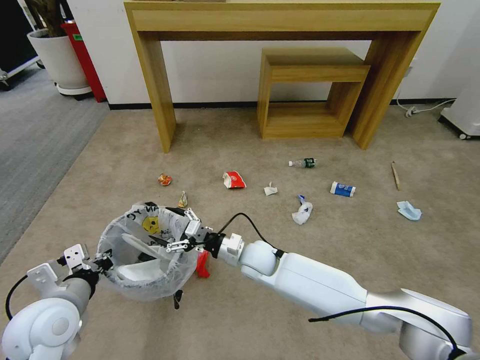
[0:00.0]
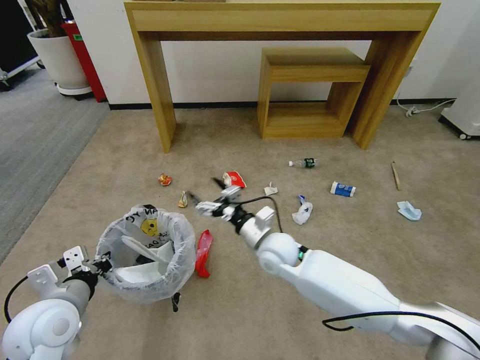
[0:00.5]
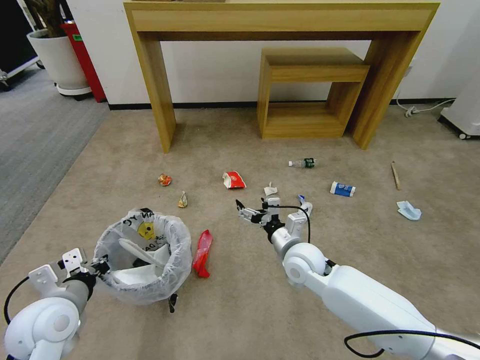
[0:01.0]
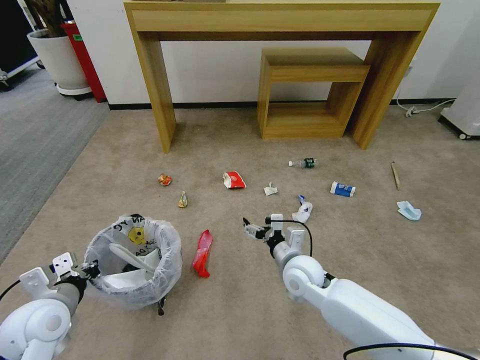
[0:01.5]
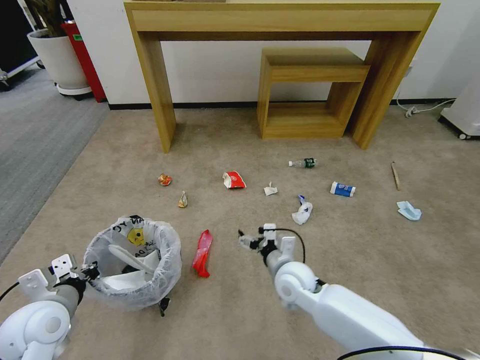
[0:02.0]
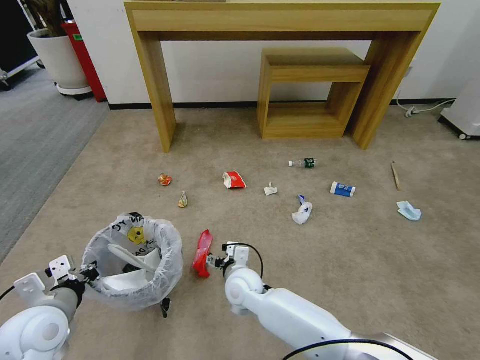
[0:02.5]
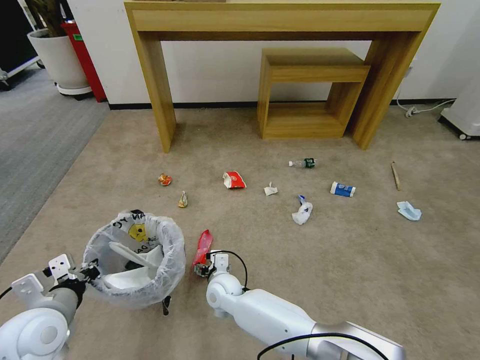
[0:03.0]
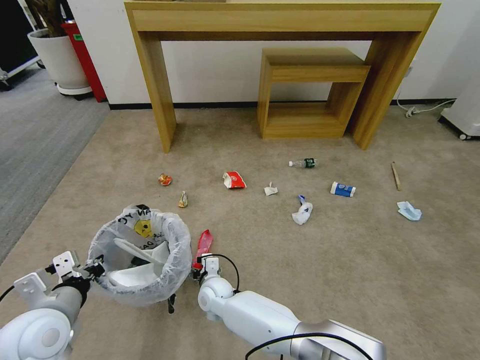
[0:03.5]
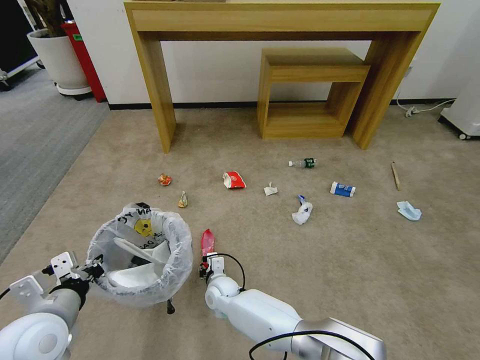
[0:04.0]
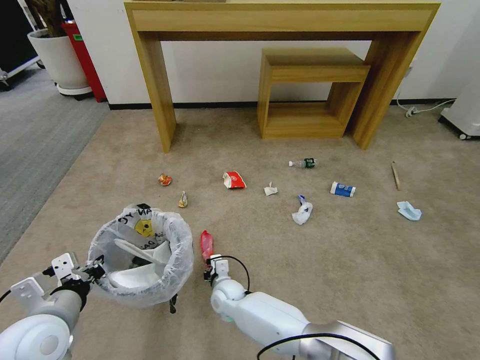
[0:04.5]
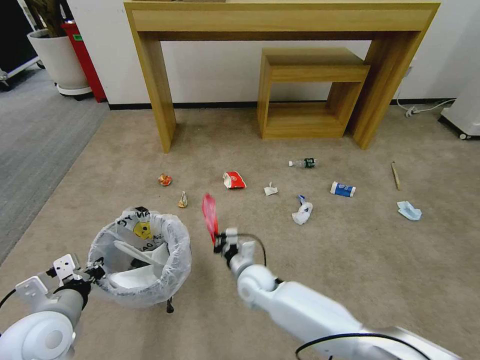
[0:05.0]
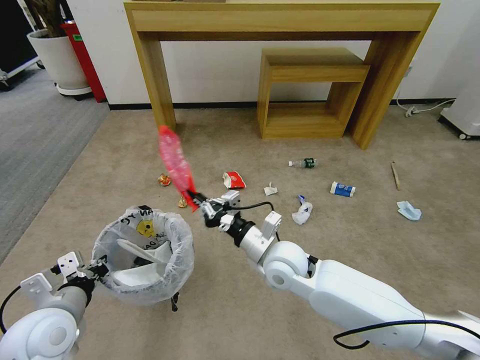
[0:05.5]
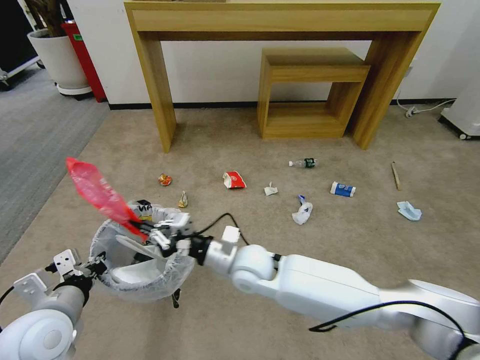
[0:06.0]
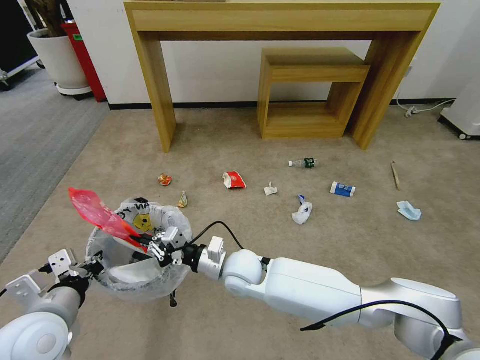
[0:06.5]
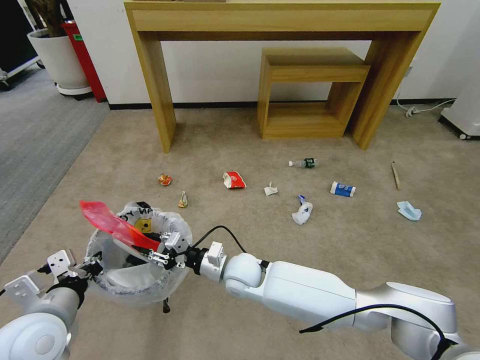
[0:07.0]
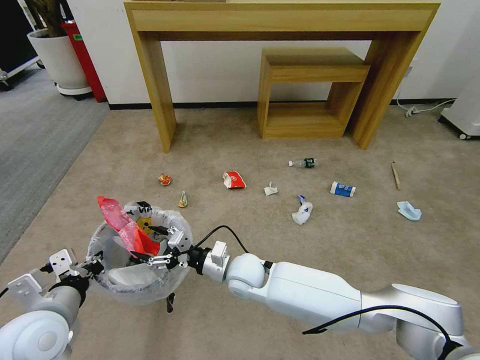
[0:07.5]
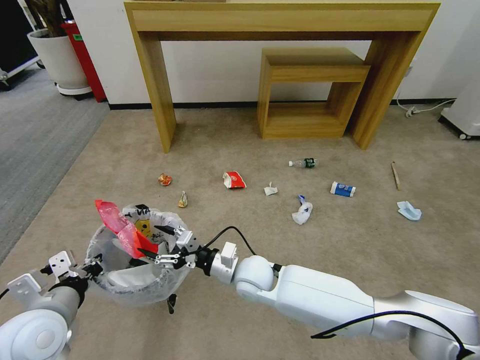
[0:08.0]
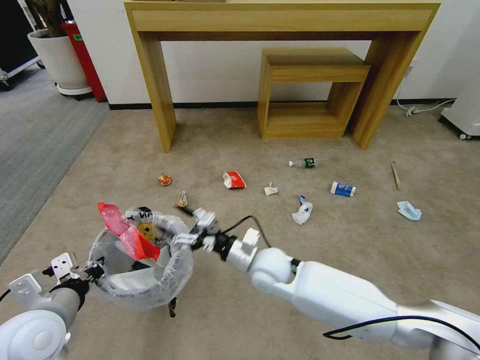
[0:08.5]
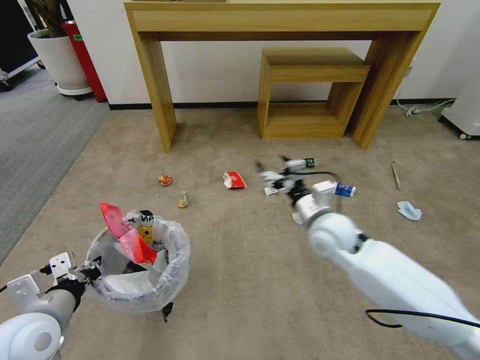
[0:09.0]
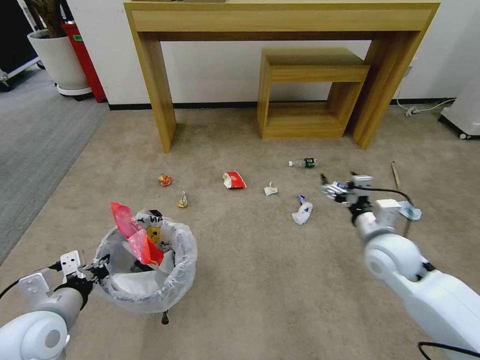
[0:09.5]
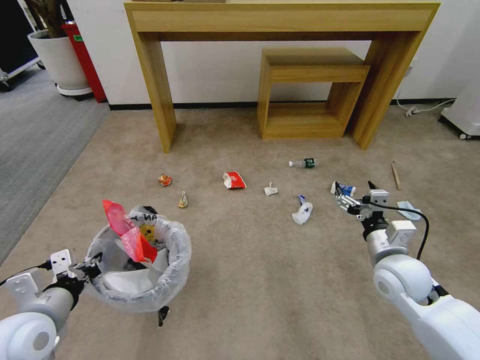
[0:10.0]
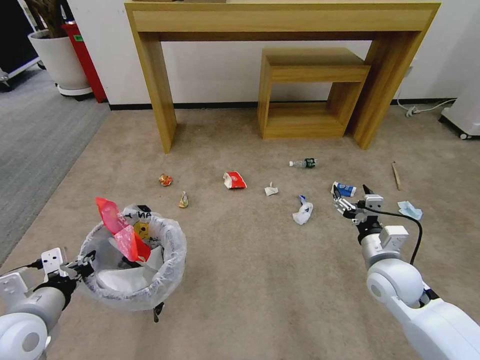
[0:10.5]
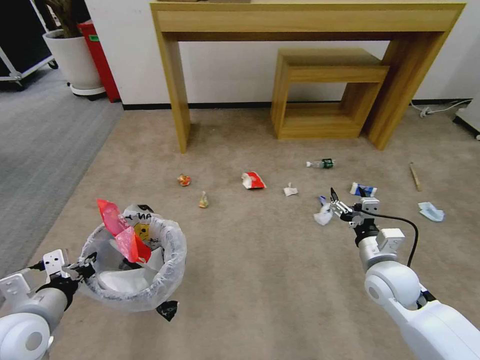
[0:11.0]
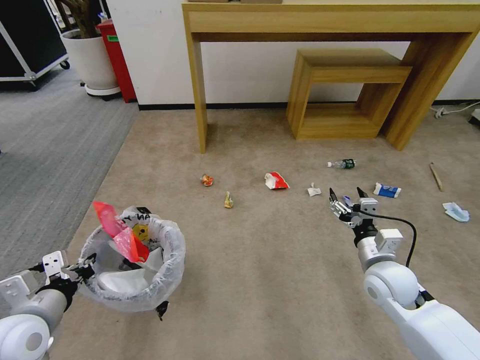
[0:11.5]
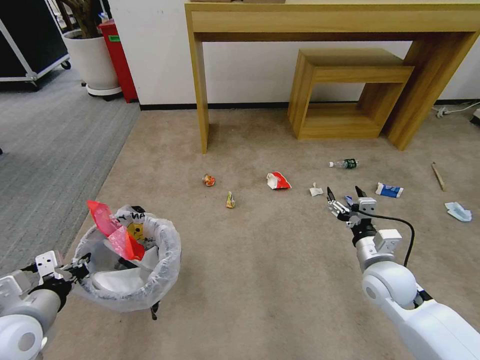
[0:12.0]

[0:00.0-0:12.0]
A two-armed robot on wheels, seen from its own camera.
Task of the whole recording: Pick up the trash bin and place the garbage on the floor into it.
0:00.0 to 0:02.0: The right gripper heads to the right and backward, covering some 10 cm.
0:02.0 to 0:04.0: The right gripper heads to the left and downward, covering approximately 20 cm, and closes. Meanwhile the left gripper shifts by roughly 5 cm.
0:04.0 to 0:06.0: The right gripper shifts roughly 20 cm upward, and closes.
0:06.0 to 0:08.0: The right gripper heads downward, covering approximately 5 cm, and opens its fingers.
0:08.0 to 0:10.0: The right gripper is displaced to the right by roughly 30 cm.

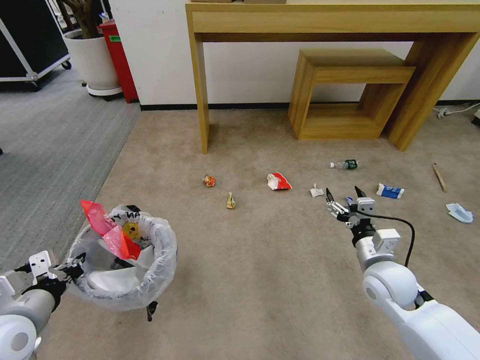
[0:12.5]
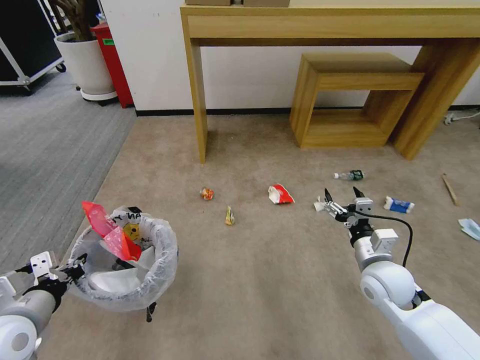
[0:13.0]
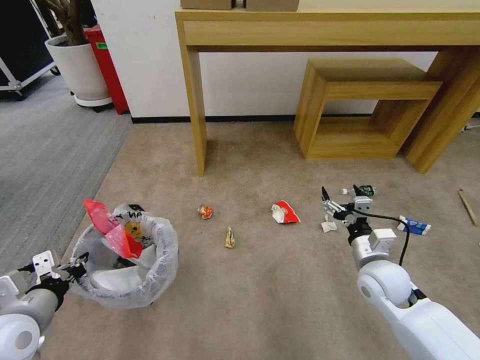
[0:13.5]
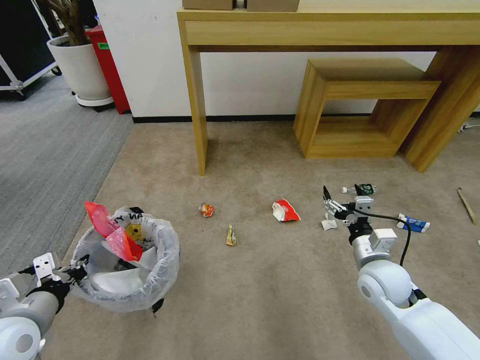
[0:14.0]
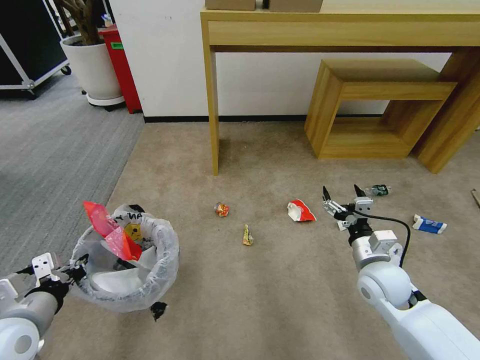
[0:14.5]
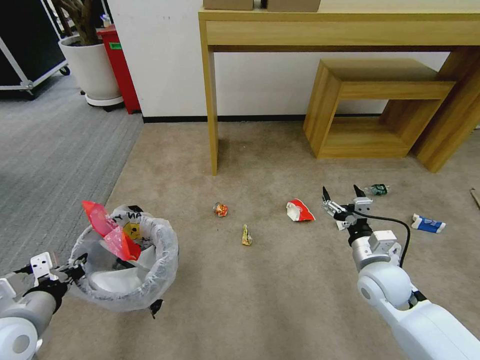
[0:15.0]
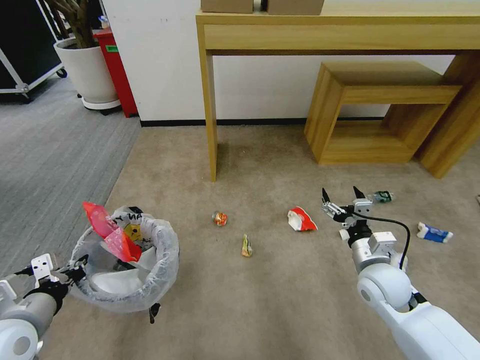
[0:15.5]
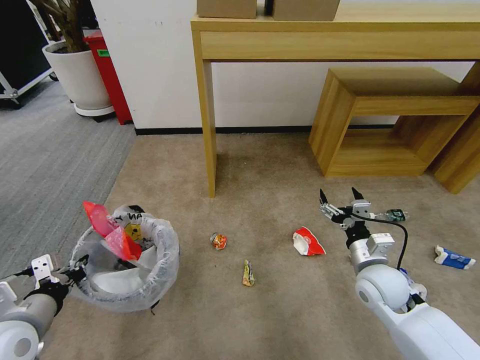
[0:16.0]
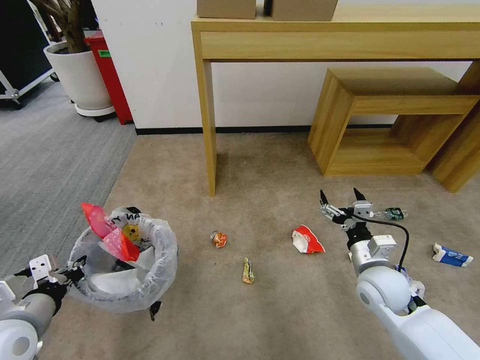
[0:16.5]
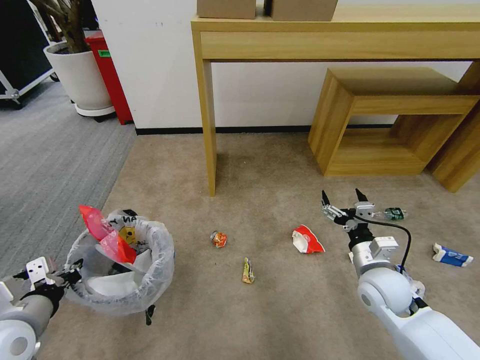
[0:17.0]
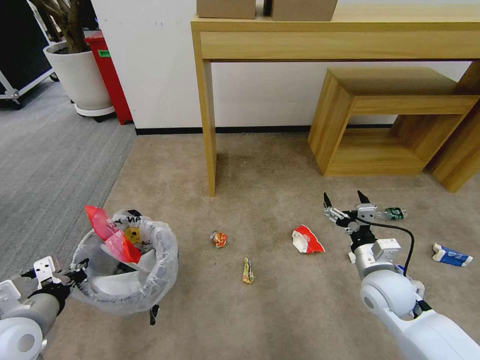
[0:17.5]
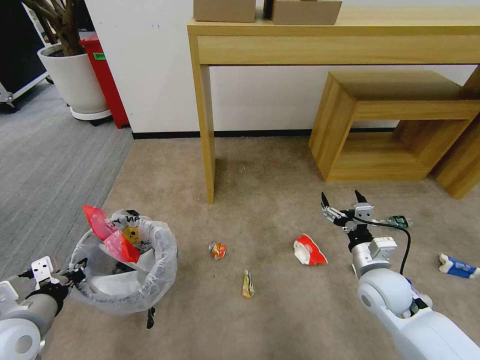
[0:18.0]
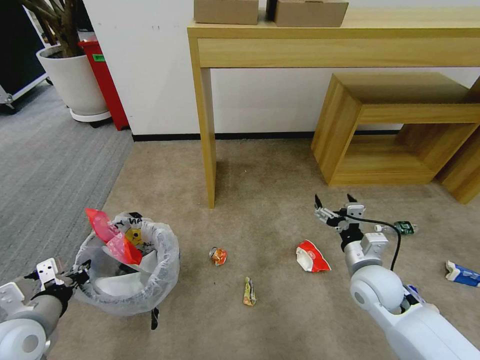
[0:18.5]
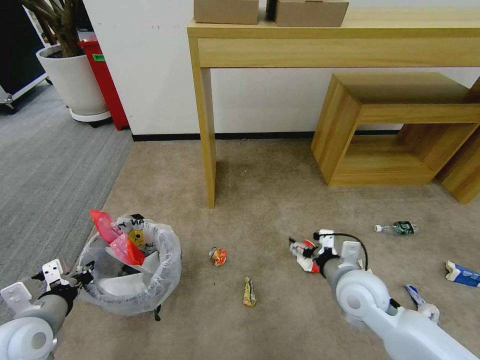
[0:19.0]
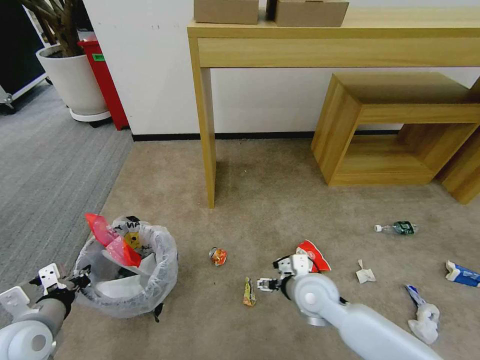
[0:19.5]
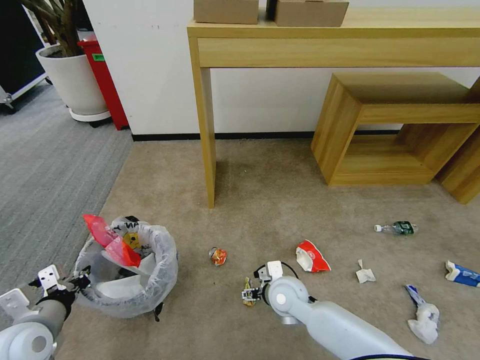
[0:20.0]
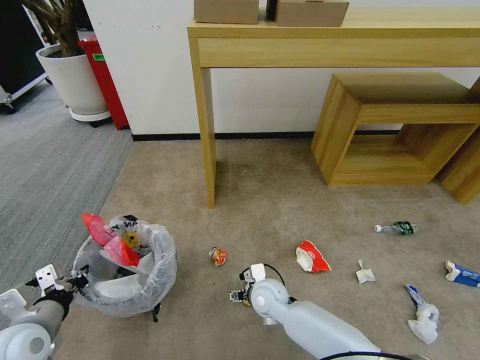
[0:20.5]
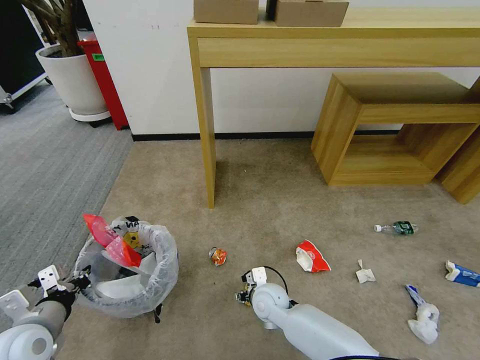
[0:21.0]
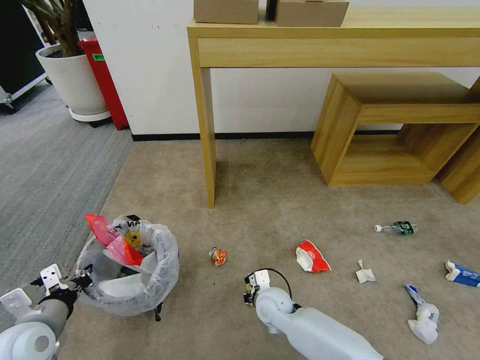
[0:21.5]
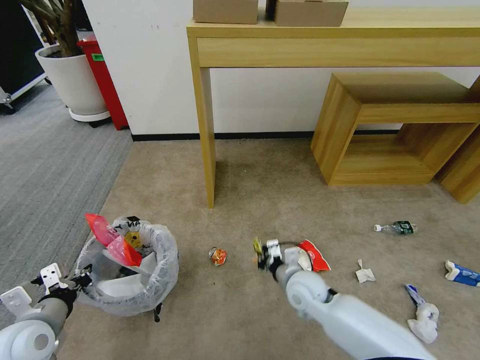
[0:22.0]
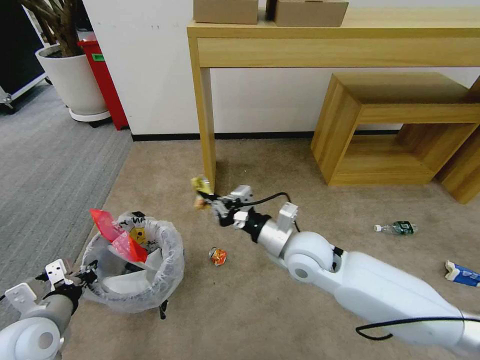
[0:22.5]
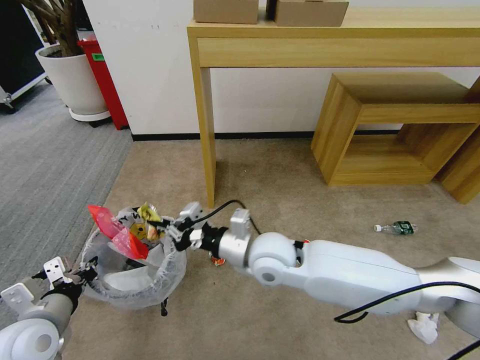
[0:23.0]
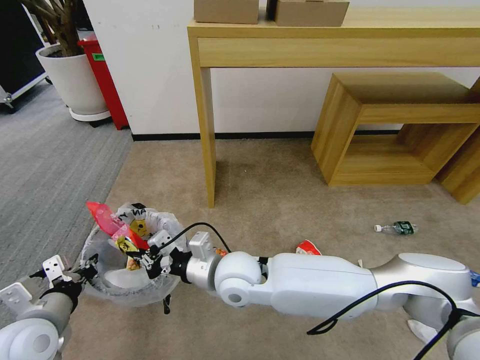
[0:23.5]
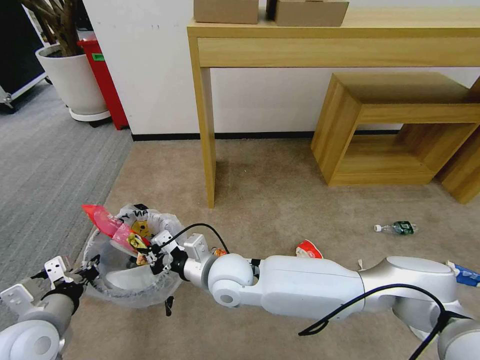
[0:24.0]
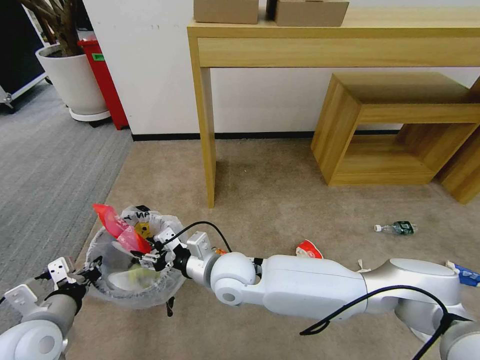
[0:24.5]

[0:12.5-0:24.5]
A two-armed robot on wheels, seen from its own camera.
Task of the whole recording: Pick up the trash bin and place the garbage on the floor into it.
0:18.5 to 0:20.5: The right gripper shifts some 25 cm to the left and downward.
0:20.5 to 0:22.5: The right gripper goes some 20 cm upward, and closes up.
0:22.5 to 0:24.5: The right gripper shifts some 15 cm to the left, and opens its fingers.

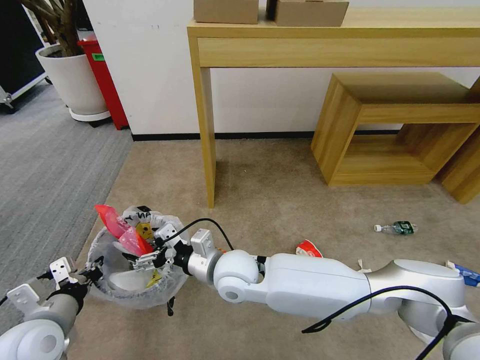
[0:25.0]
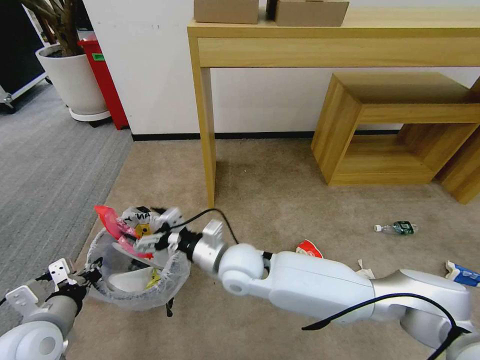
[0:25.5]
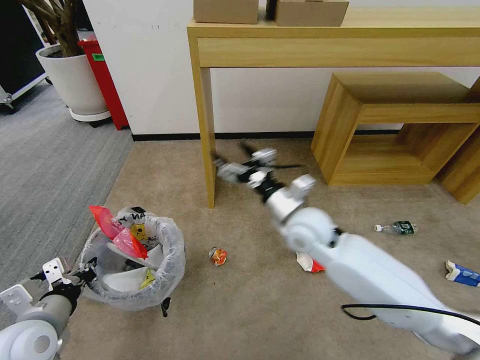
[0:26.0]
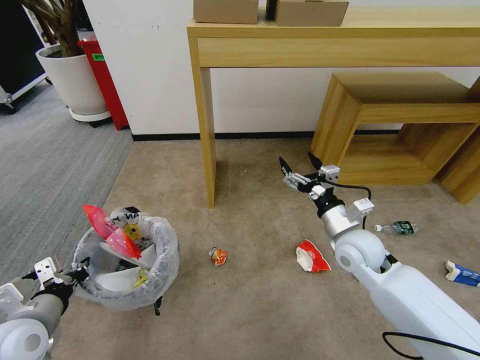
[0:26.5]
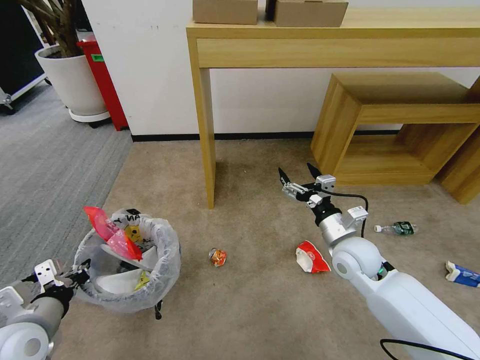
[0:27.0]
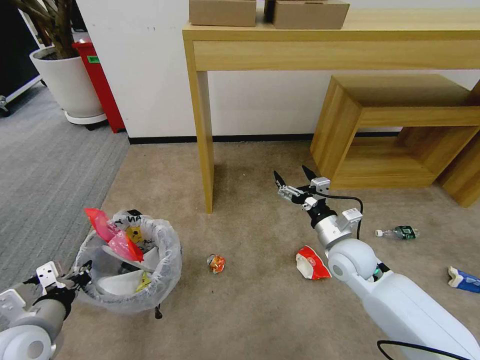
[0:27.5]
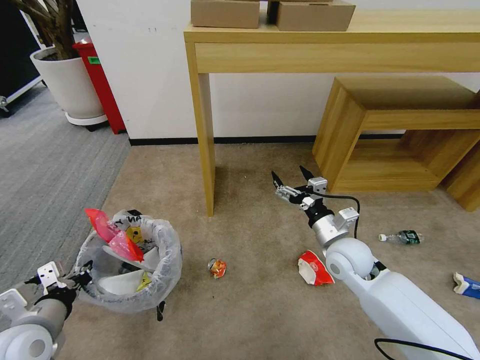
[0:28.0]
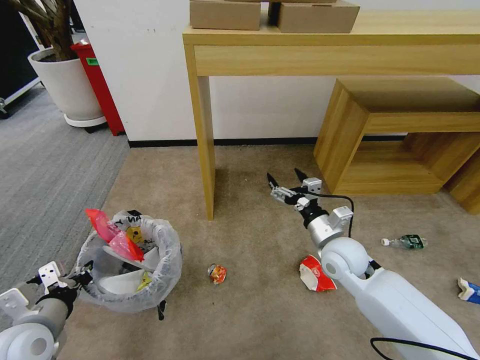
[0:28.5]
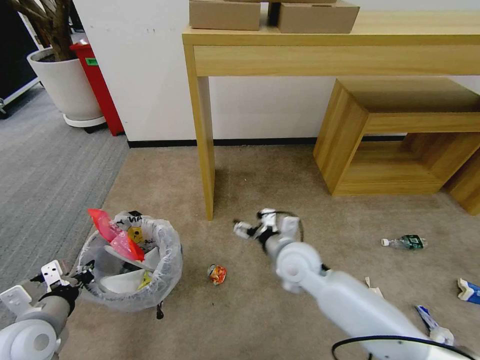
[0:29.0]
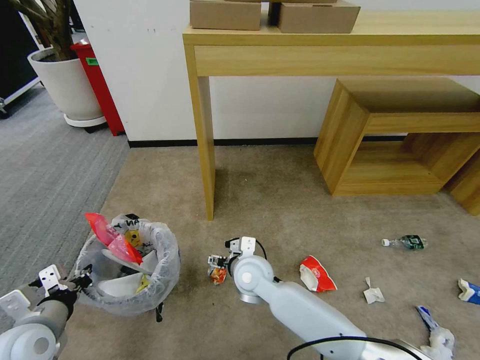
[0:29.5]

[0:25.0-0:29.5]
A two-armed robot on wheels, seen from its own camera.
Task of the whole recording: Pick up the trash bin and place the garbage on the floor into it.
0:25.0 to 0:27.0: The right gripper is displaced to the right by approximately 25 cm.
0:27.0 to 0:29.5: The right gripper travels to the left by approximately 20 cm.
